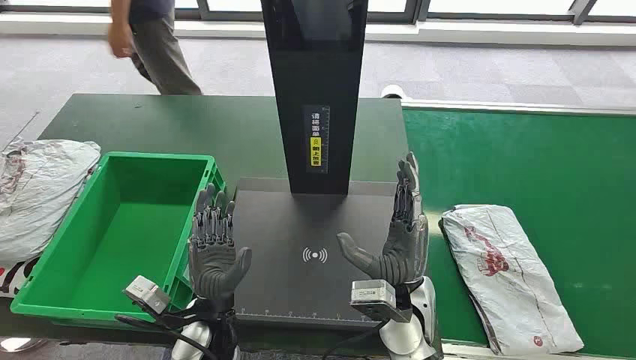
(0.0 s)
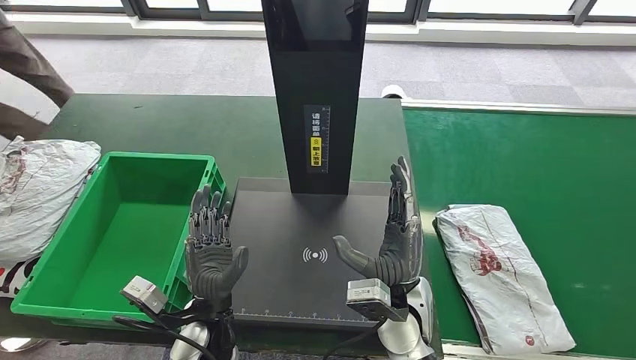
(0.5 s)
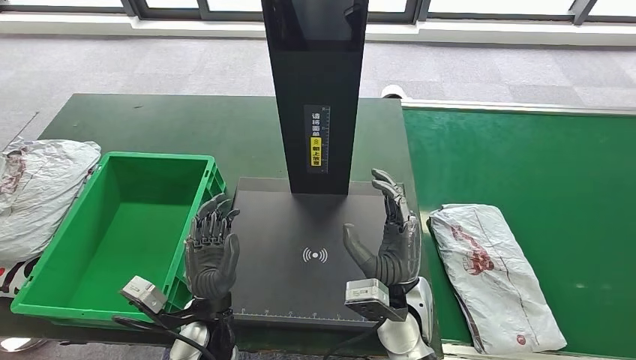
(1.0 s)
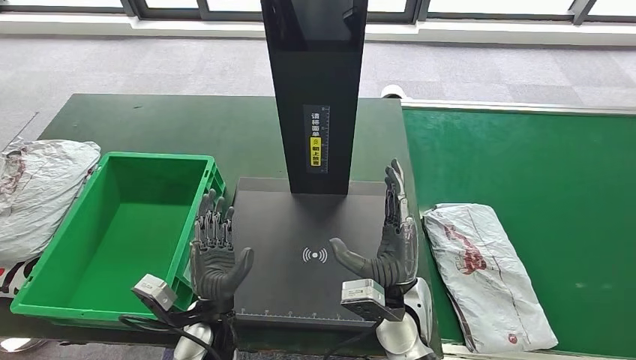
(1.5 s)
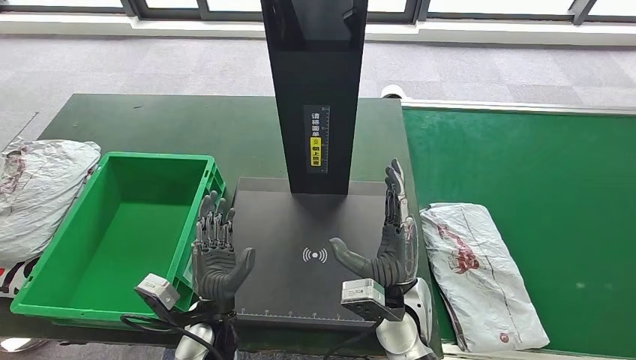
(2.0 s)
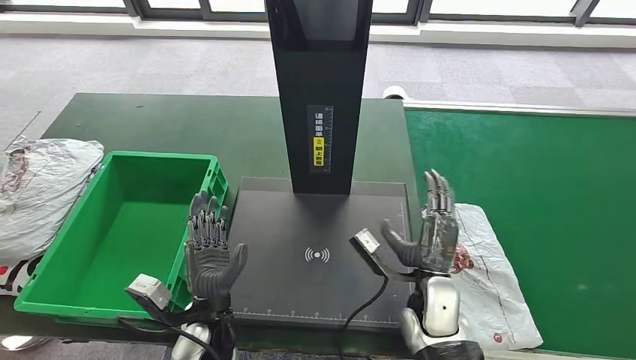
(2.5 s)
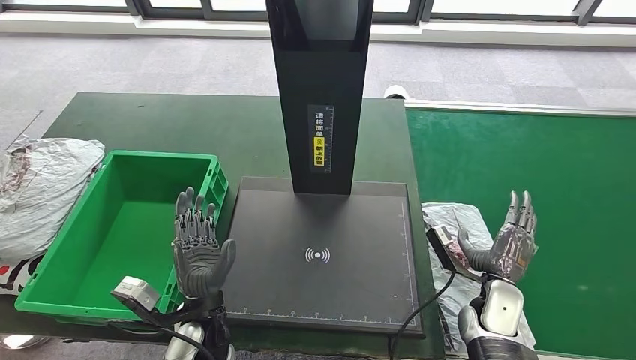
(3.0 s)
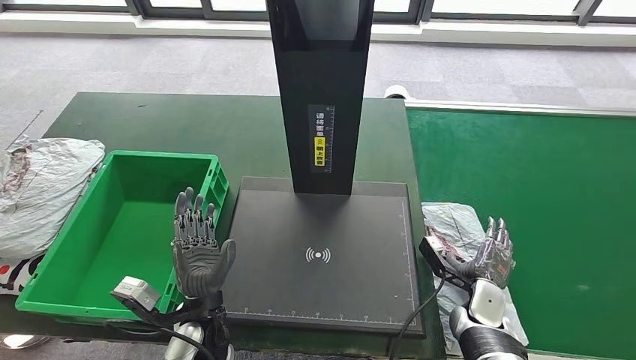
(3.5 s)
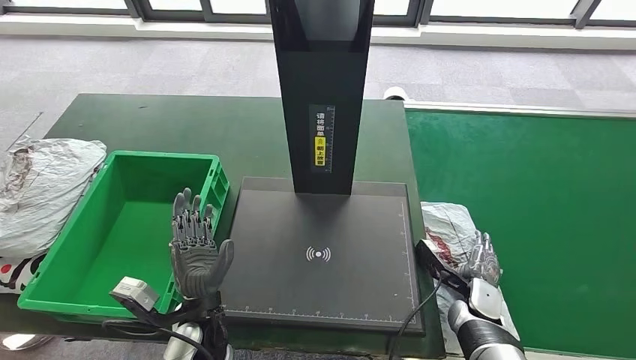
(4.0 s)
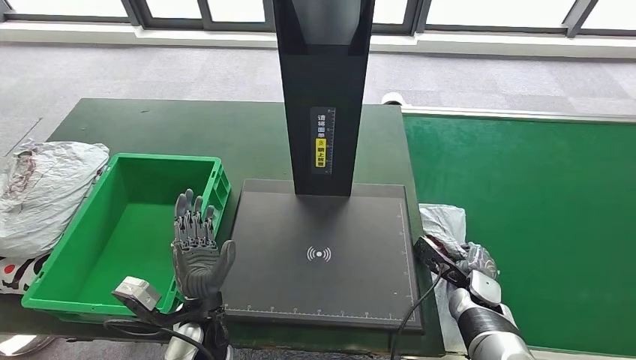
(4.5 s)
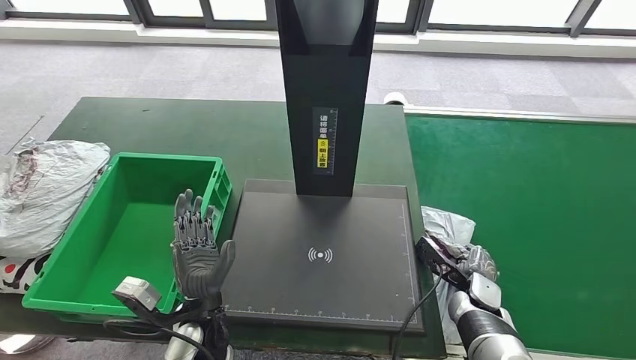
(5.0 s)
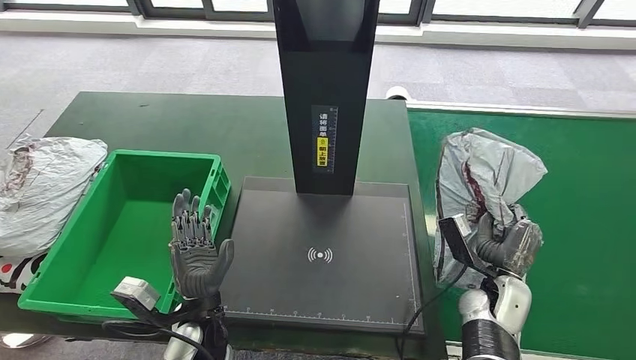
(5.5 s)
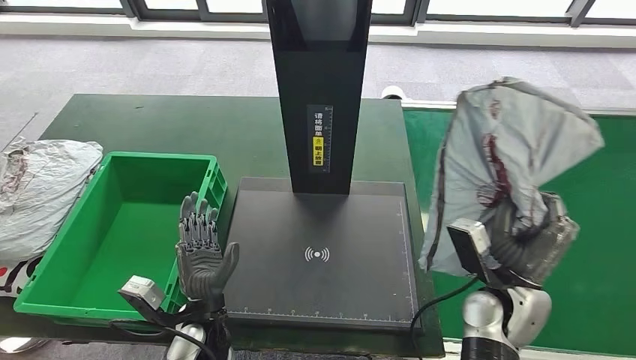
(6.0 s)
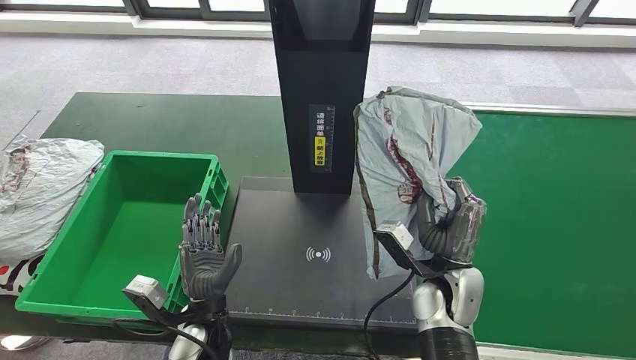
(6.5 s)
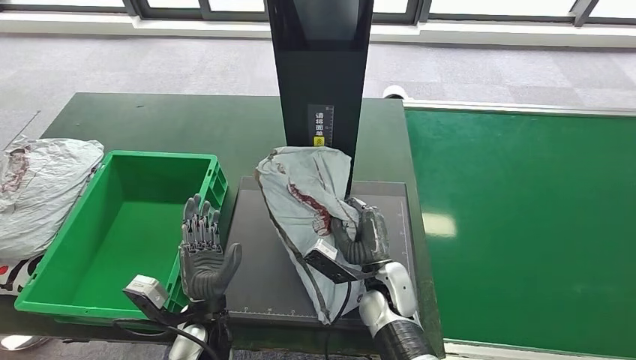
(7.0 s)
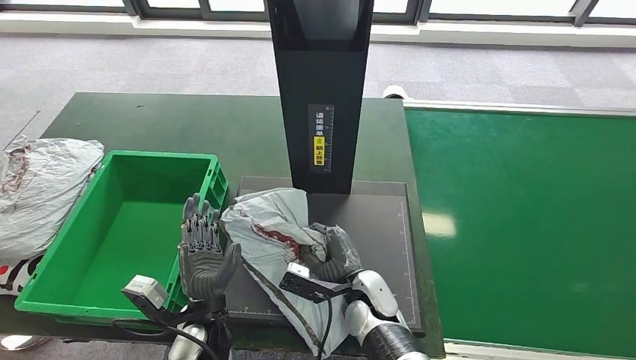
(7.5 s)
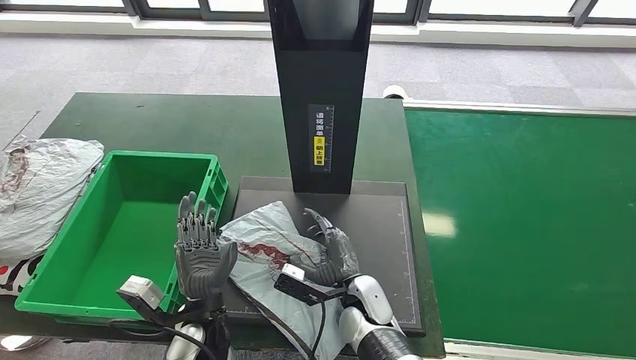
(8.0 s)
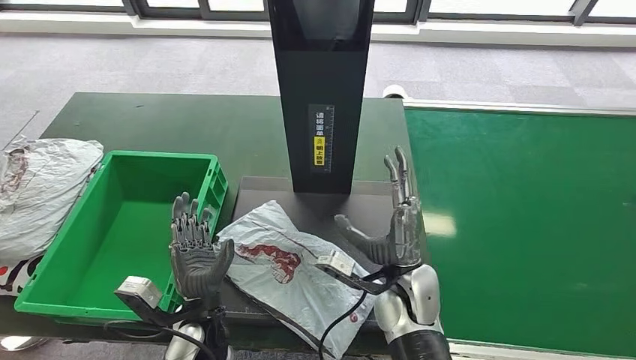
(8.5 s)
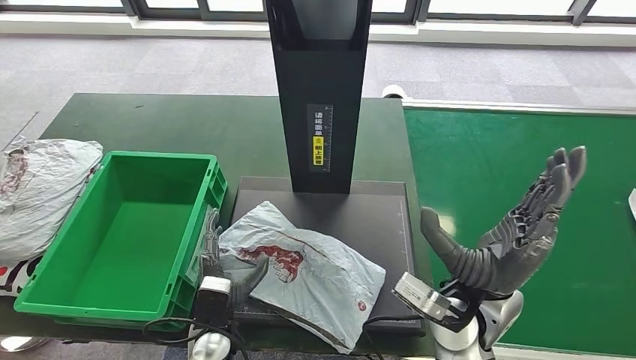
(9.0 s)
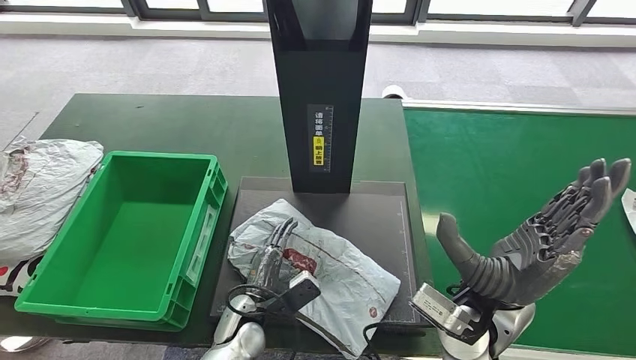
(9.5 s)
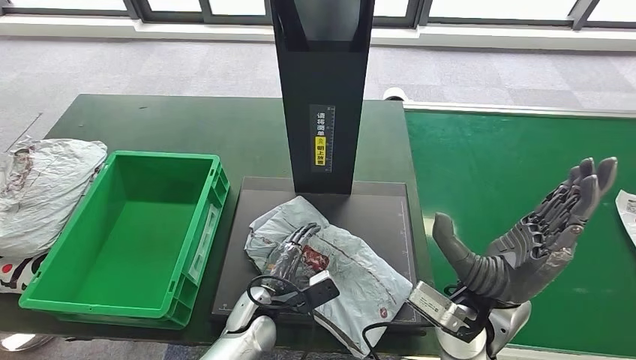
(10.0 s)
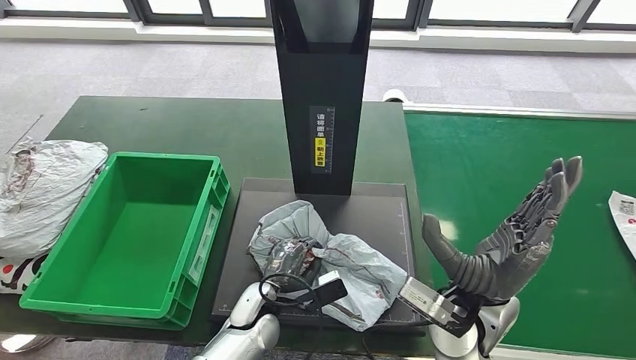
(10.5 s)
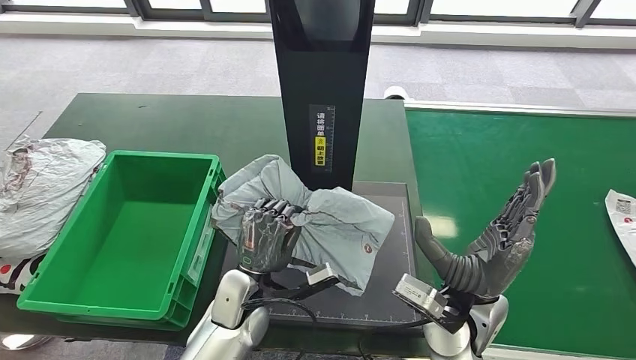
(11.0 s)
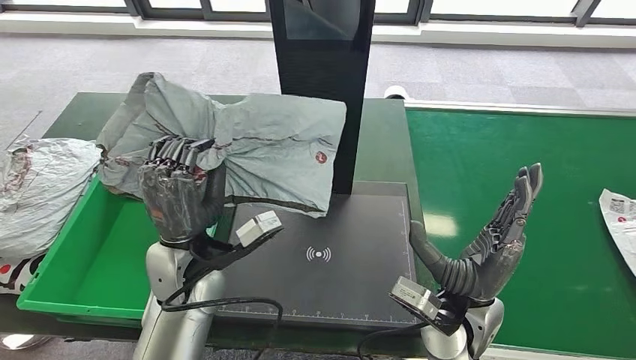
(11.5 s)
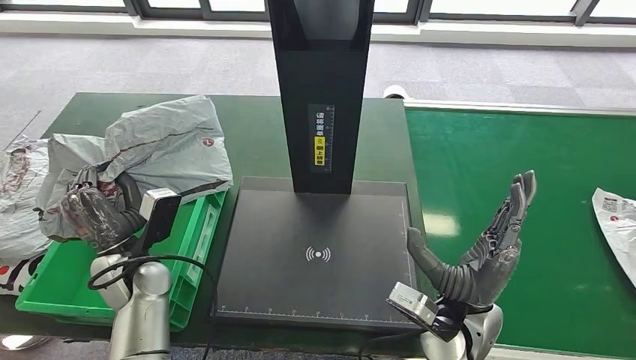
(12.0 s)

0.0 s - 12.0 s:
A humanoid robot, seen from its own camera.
Step, 0.0 s - 5.5 s: Take the parcel off the conveyor belt.
Step, 6.0 s - 9.0 s: Place the parcel onto the inbound machine.
Step, 9.5 s - 11.0 s: Pick up the parcel from the inbound machine.

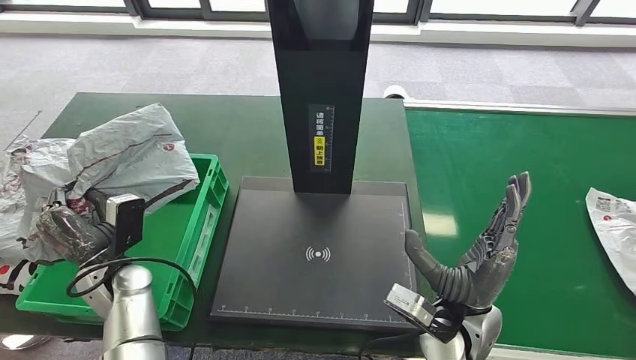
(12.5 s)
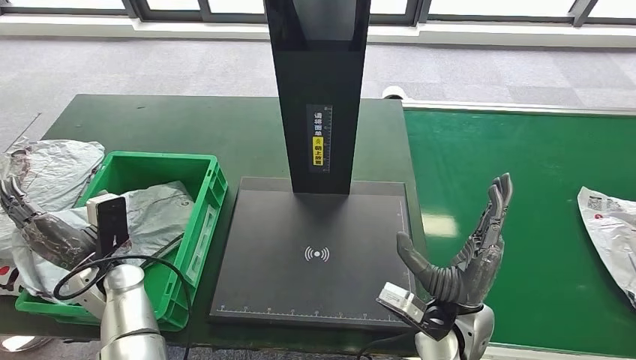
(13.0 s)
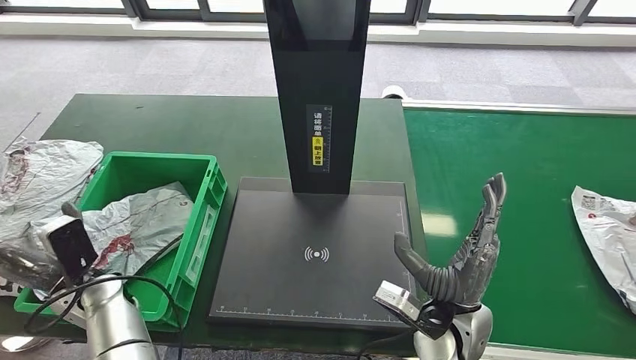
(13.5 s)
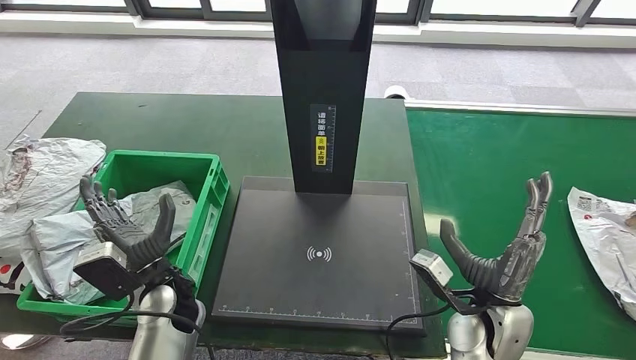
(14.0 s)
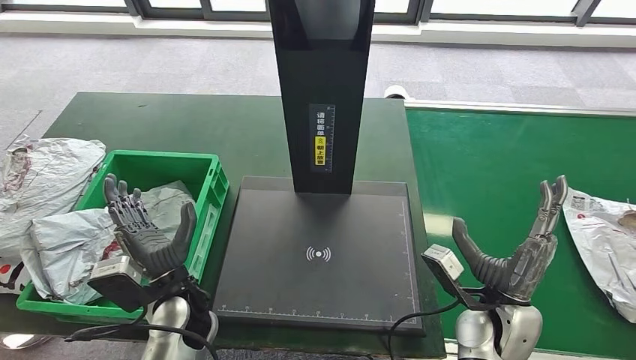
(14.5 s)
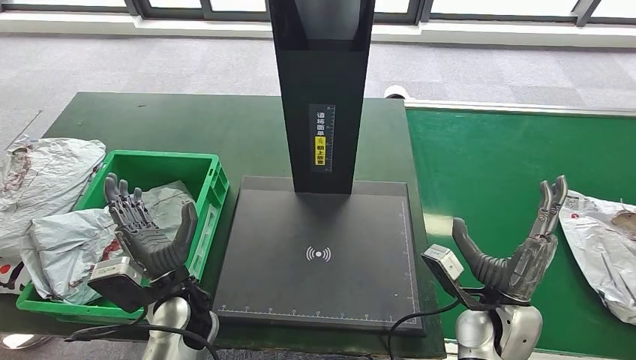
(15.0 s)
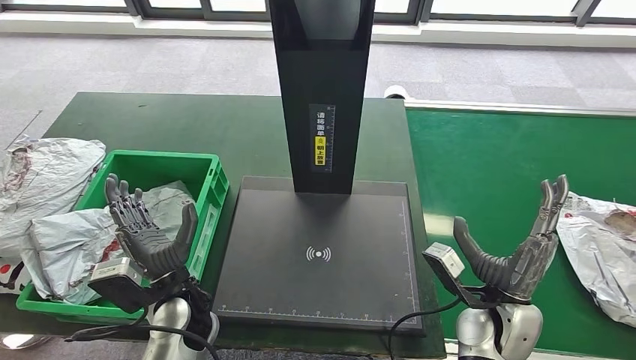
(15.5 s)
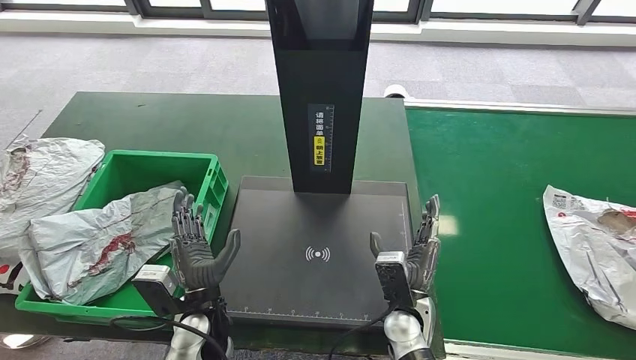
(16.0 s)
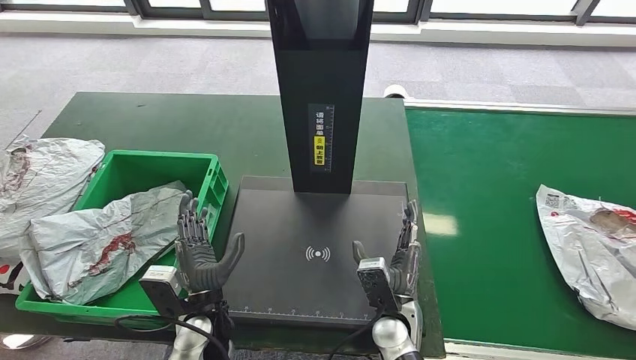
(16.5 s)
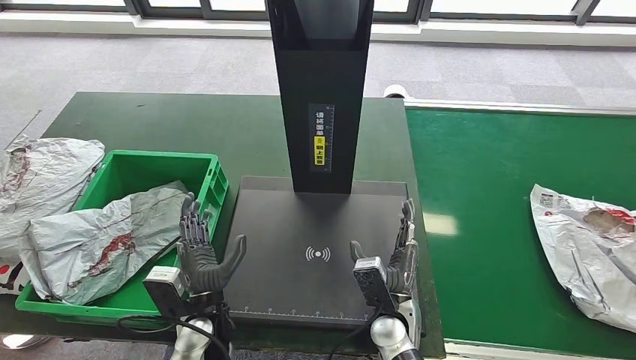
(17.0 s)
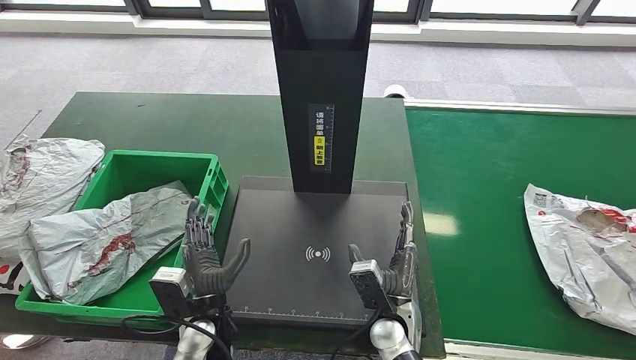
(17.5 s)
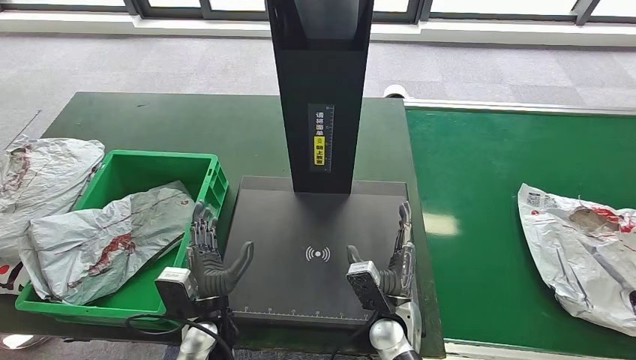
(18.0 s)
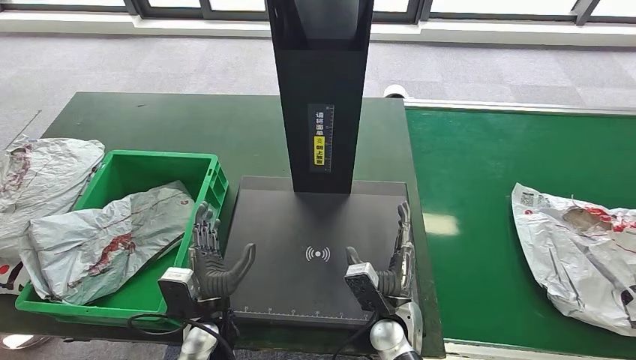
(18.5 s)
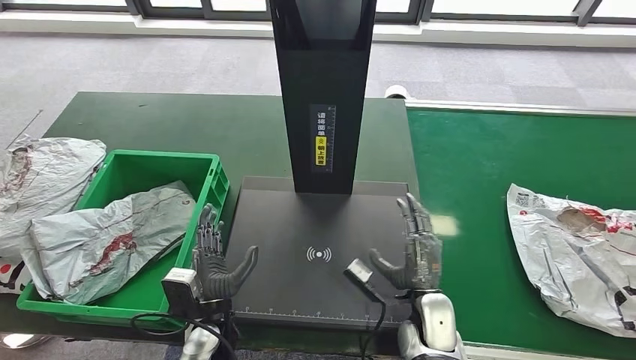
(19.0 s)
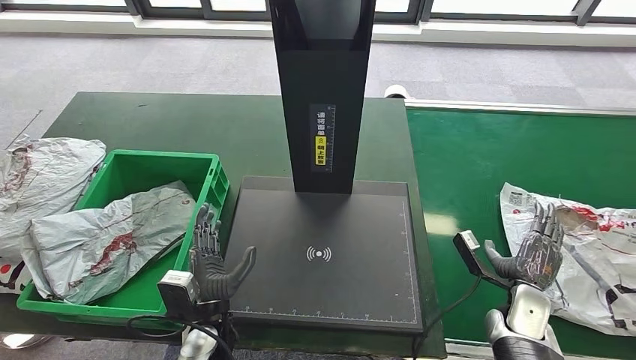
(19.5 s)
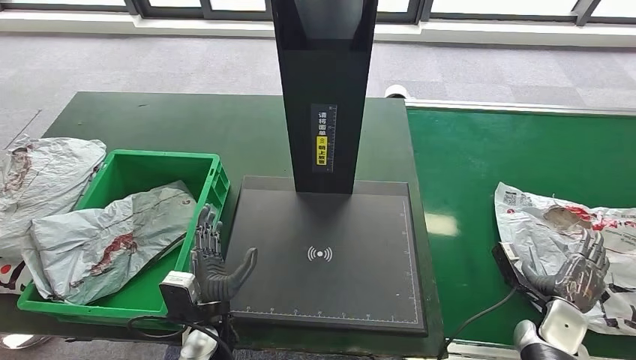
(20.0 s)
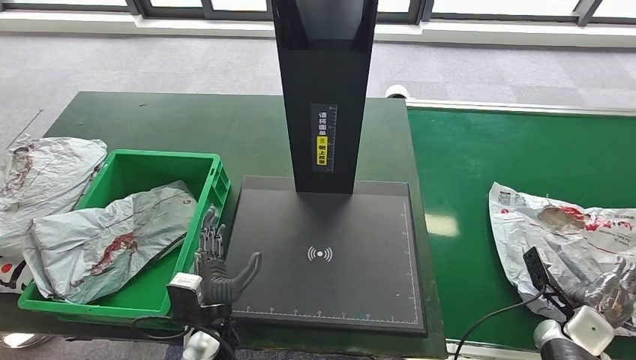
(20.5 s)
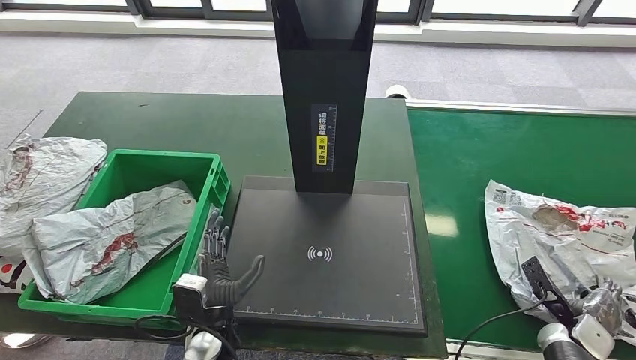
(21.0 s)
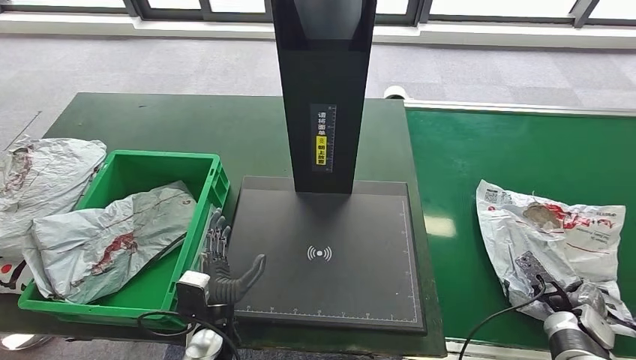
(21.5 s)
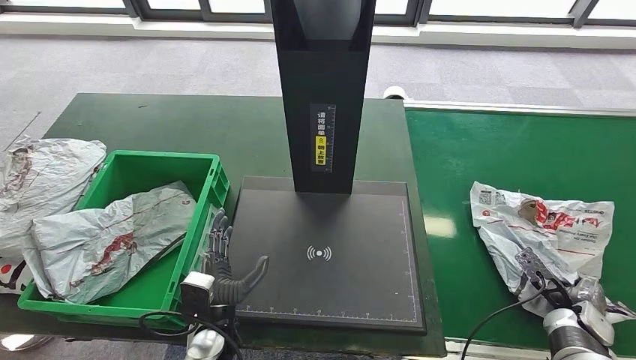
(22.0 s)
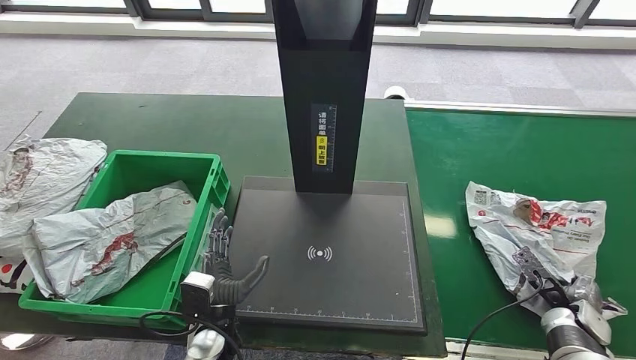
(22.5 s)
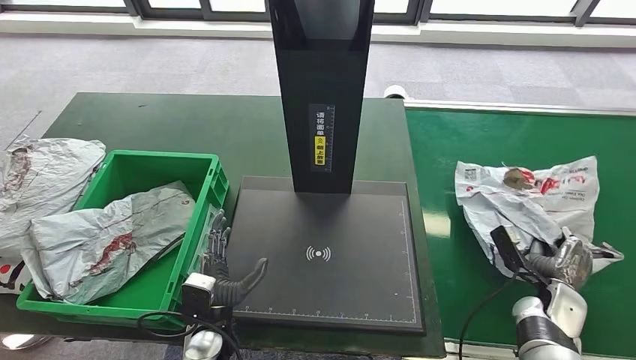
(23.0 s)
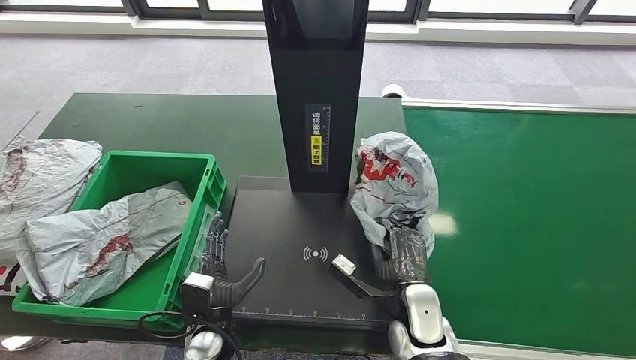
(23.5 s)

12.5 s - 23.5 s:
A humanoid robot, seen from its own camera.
Step, 12.5 s - 14.0 s: Put the parcel inside the courier box.
Step, 14.5 s - 23.0 s: Pick up the parcel from the conveyor belt.
14.5 s - 16.0 s: The left hand moves about 5 cm. The right hand moves to the left and downward, roughly 15 cm.
16.0 s - 18.0 s: There are only small adjustments of the hands.
18.0 s - 20.0 s: The right hand moves to the right, roughly 30 cm.
